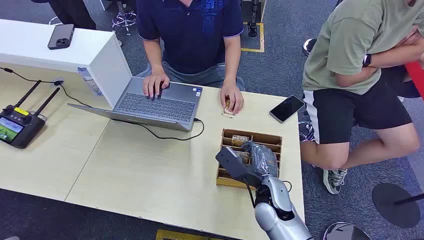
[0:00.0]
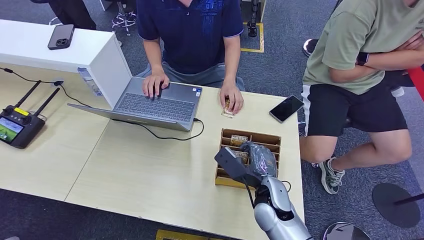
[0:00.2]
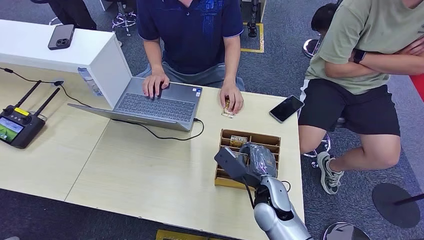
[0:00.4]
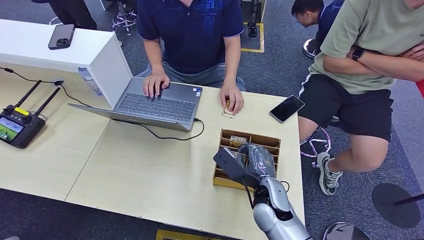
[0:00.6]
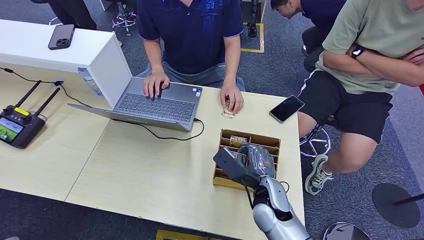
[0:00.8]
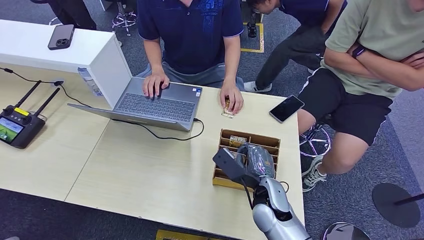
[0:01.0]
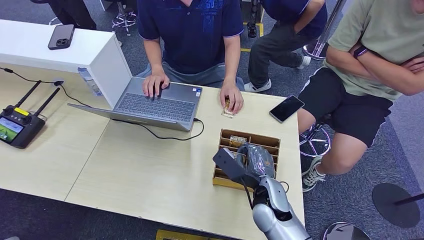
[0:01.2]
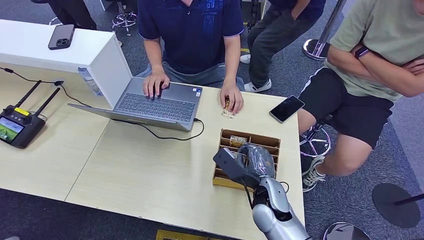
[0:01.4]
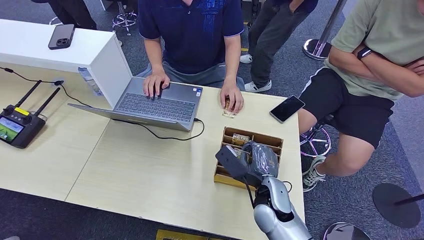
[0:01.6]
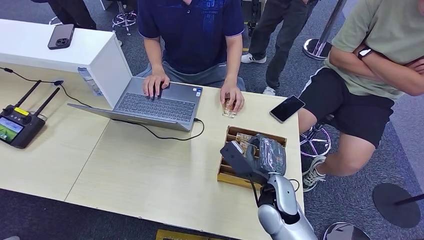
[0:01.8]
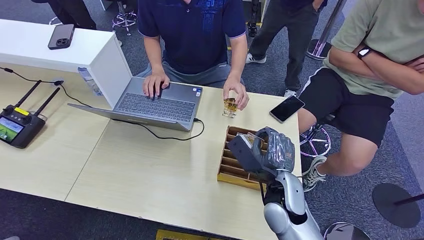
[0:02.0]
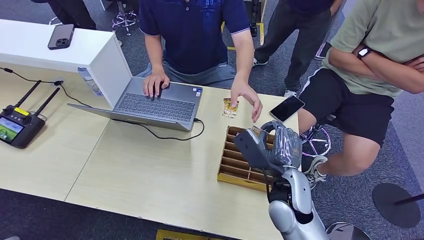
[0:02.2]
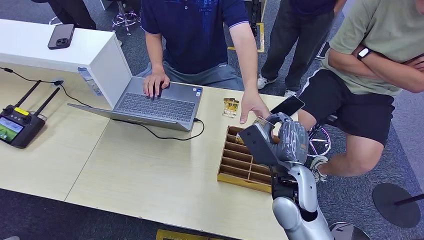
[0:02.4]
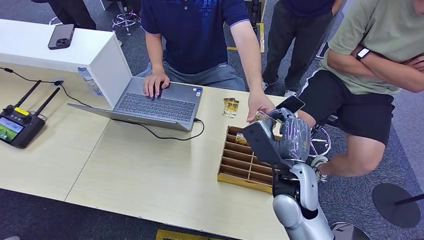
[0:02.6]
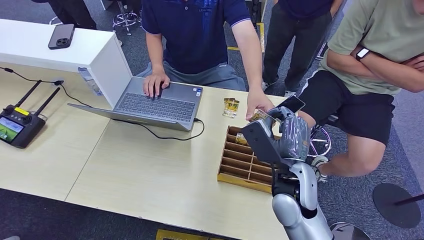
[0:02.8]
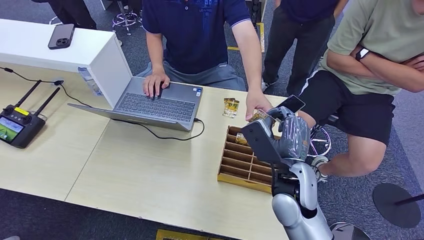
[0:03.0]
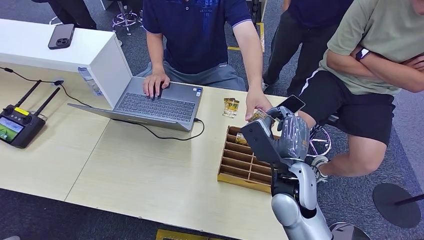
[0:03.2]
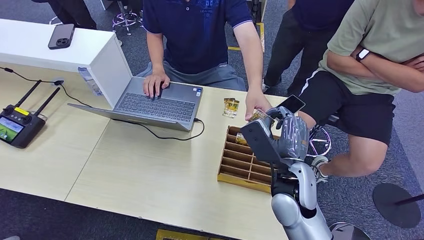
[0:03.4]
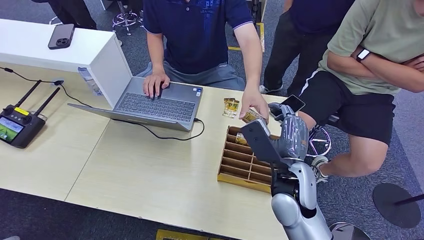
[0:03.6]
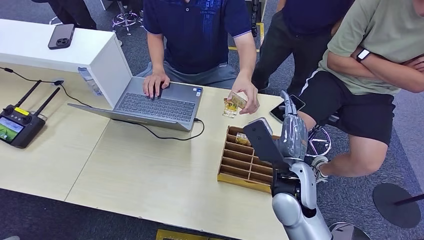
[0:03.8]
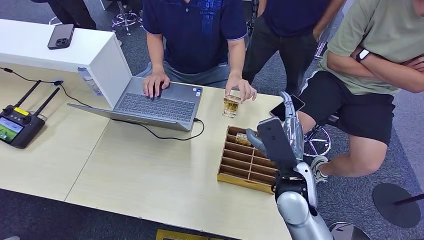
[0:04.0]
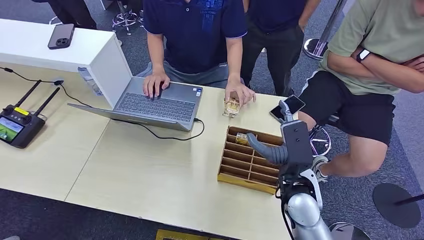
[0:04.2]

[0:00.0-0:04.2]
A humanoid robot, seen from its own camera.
Step, 0:00.0 to 0:02.2: Pick up the room card from the card holder.
Step, 0:02.4 to 0:04.0: Hand the room card to the target.
0:01.4 to 0:02.8: The right hand goes some 10 cm upward.
0:02.8 to 0:04.2: The right hand goes about 10 cm downward and to the right.
